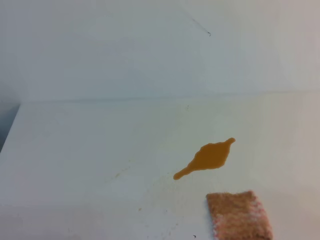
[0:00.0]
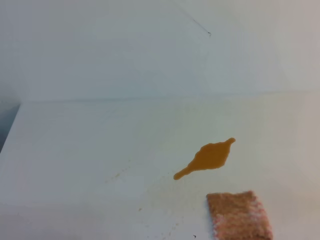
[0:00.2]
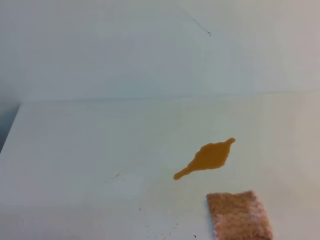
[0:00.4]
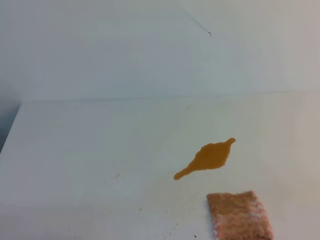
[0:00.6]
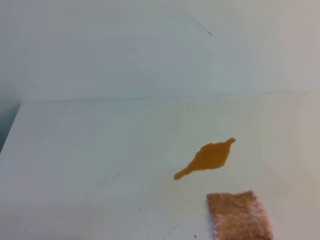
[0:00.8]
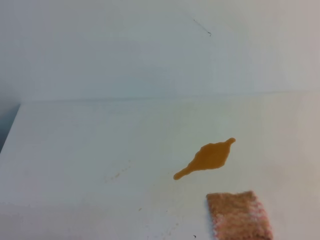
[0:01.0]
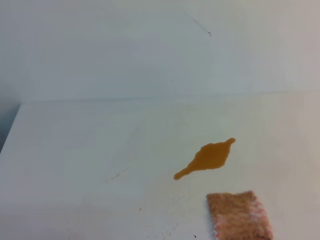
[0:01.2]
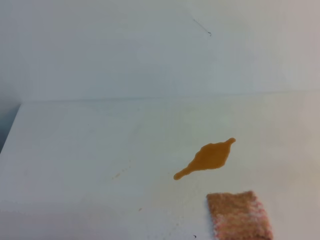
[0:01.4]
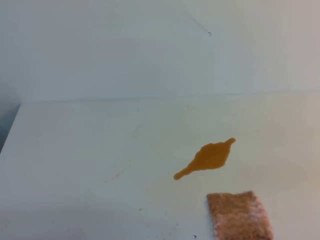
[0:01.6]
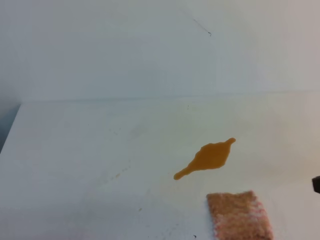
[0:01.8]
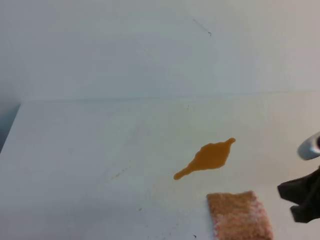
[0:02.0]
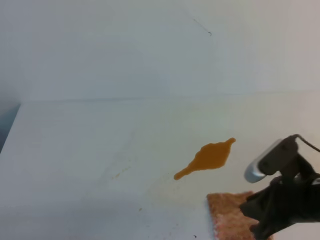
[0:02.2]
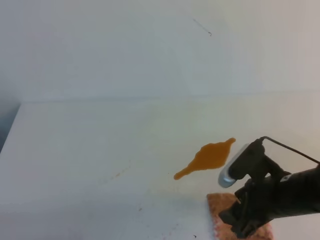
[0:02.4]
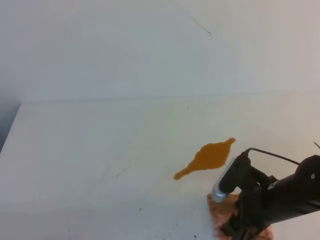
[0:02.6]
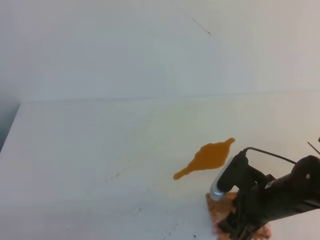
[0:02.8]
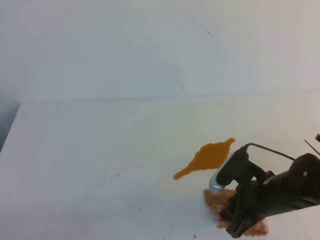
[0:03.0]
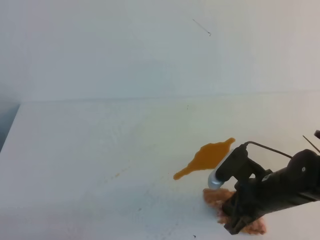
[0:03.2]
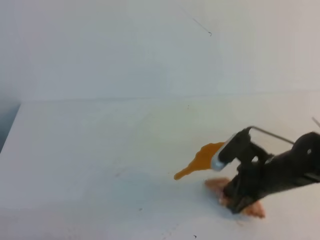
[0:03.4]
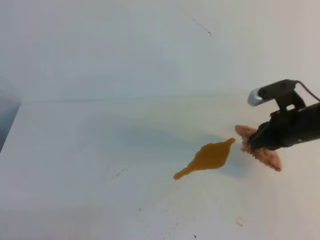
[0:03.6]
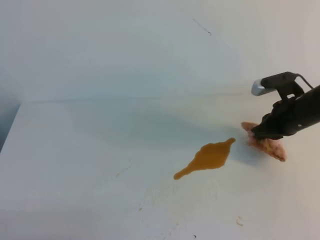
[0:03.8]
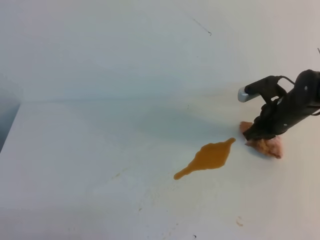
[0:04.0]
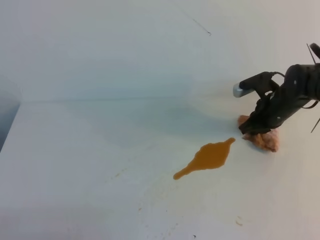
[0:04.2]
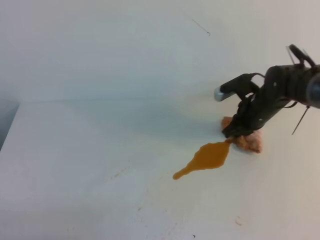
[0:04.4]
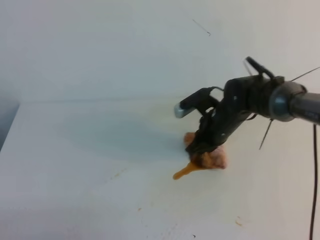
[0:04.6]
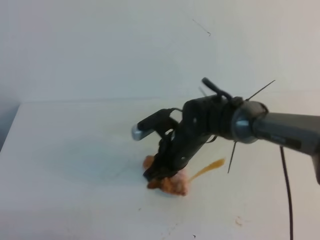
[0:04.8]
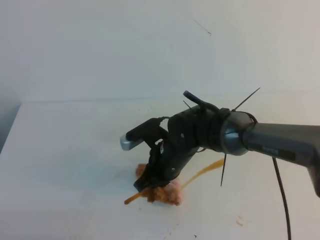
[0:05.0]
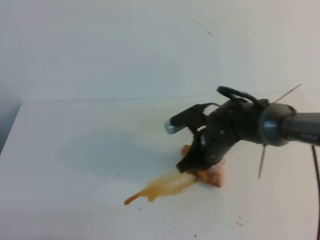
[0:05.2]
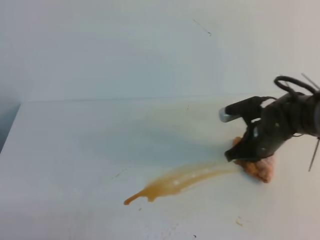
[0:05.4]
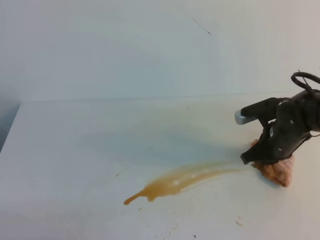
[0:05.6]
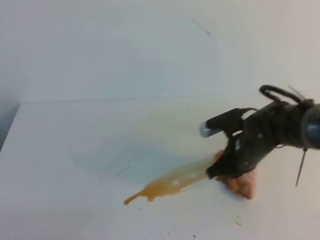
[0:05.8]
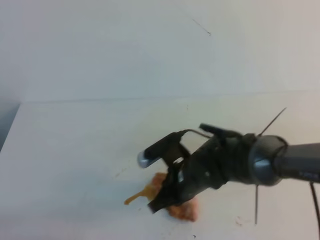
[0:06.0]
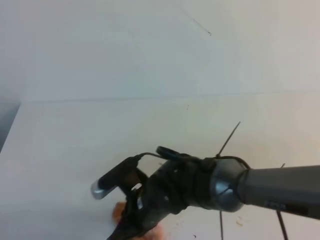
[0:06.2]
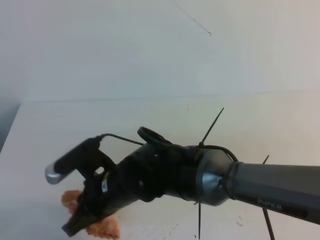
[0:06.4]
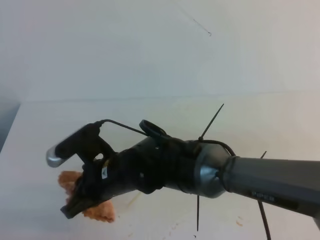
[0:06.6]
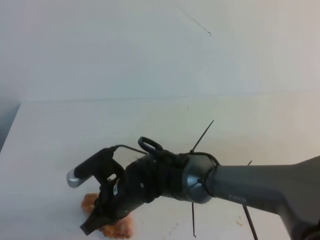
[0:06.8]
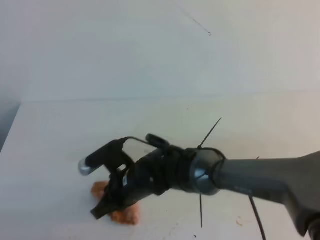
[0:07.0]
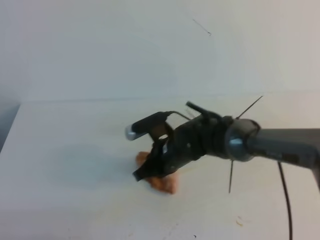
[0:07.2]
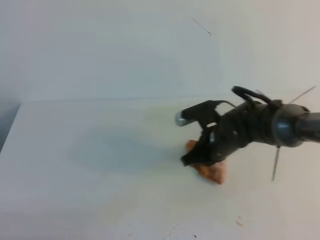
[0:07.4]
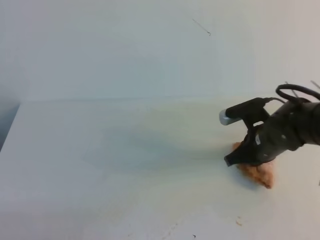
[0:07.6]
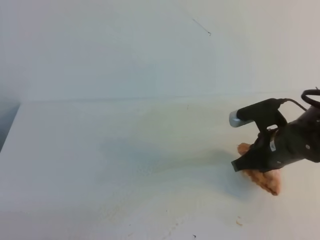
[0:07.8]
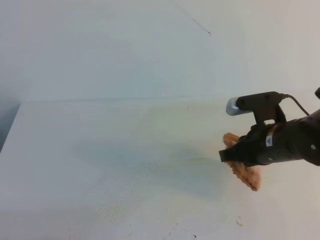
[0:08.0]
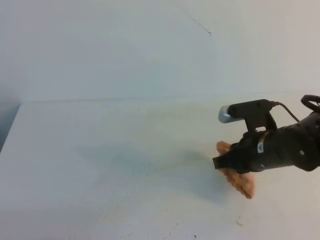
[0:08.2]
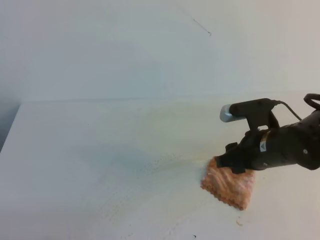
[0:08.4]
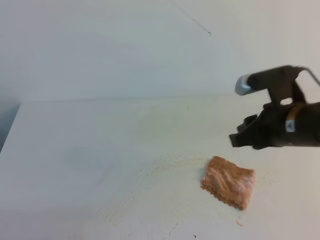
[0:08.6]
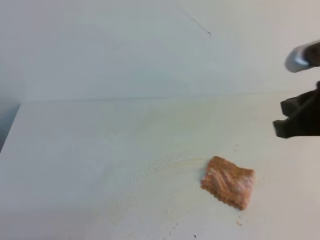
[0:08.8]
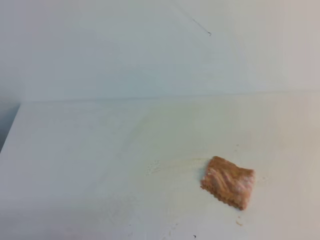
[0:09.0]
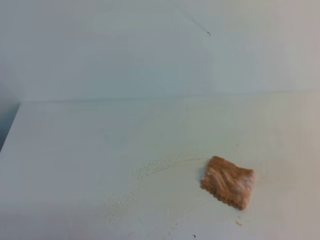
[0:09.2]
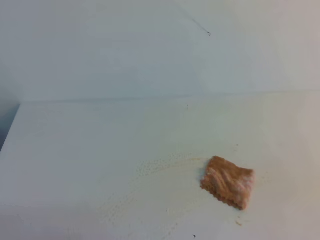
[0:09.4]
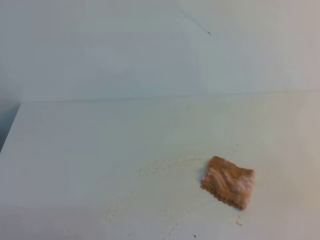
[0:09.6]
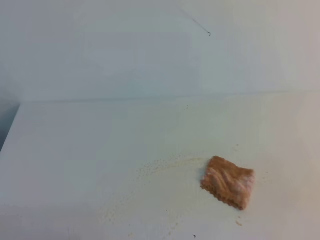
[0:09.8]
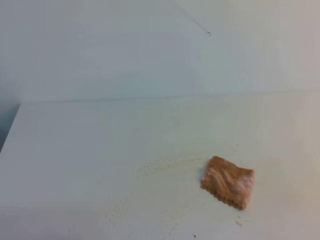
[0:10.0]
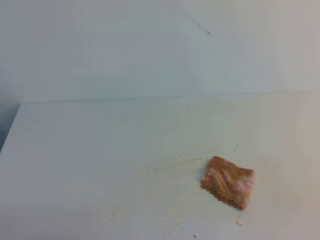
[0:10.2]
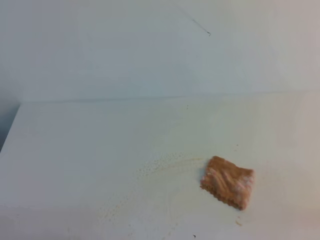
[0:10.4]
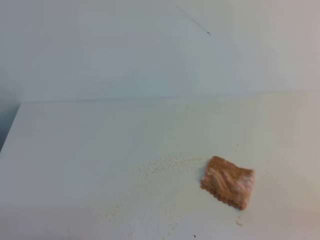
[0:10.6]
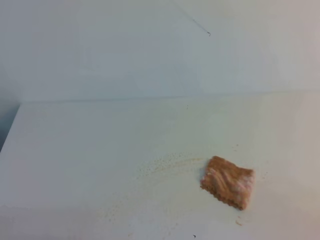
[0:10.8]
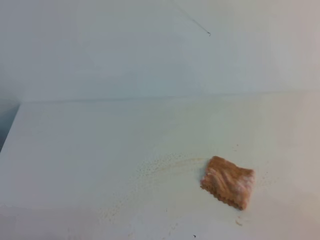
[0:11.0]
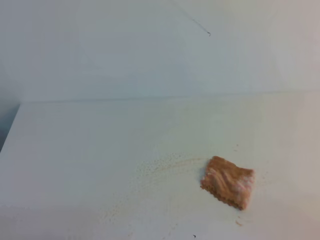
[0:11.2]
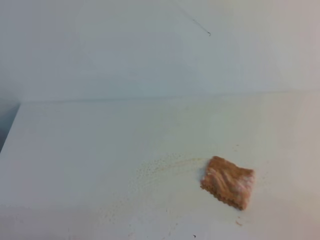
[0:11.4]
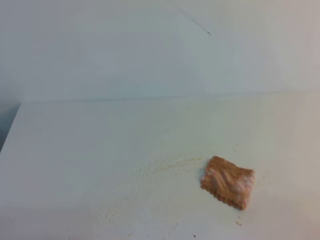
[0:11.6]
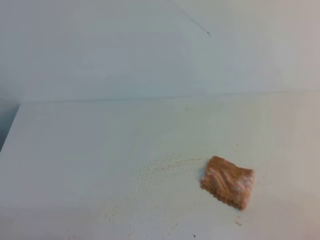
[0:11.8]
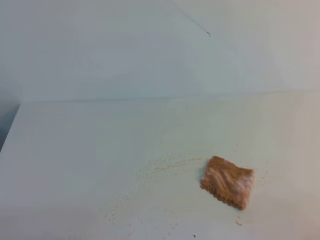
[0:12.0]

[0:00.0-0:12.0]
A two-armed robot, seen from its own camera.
0:01.6 to 0:03.0: The right gripper moves downward, to the left and forward, approximately 25 cm, and opens up.
0:03.0 to 0:04.4: The right gripper shifts about 20 cm forward, and closes up.
0:04.4 to 0:06.0: The right gripper goes left and right, roughly 15 cm each way, reversing 2 times.
0:06.0 to 0:07.6: The right gripper goes some 10 cm to the right.
0:07.6 to 0:09.0: The right gripper heads backward, upward and to the right, covering approximately 25 cm, and opens, then closes once more.
0:09.0 to 0:10.4: The right gripper travels backward, downward and to the right by some 15 cm.

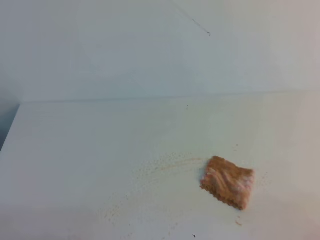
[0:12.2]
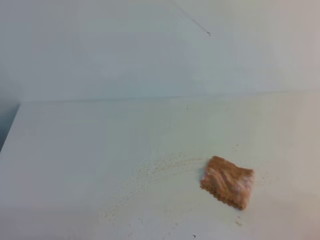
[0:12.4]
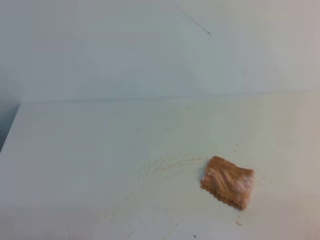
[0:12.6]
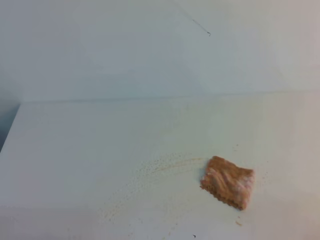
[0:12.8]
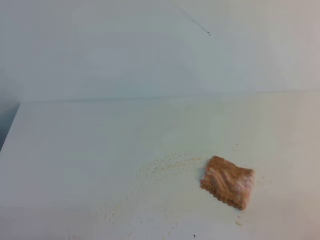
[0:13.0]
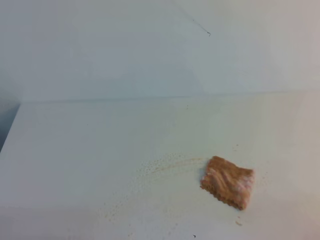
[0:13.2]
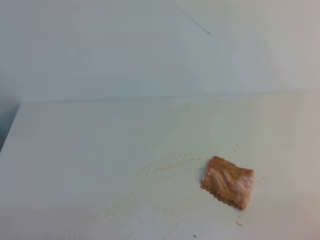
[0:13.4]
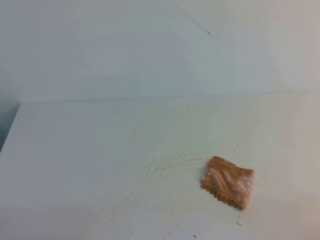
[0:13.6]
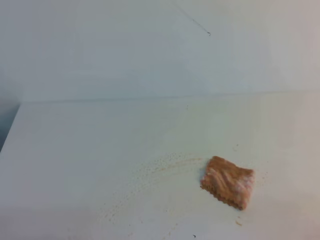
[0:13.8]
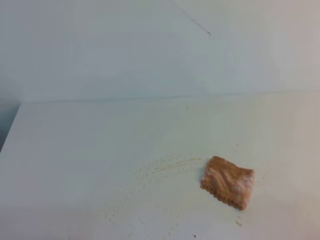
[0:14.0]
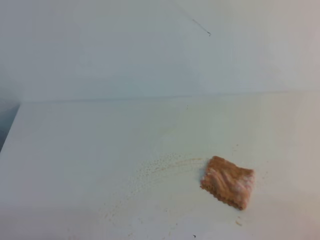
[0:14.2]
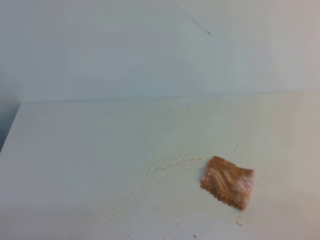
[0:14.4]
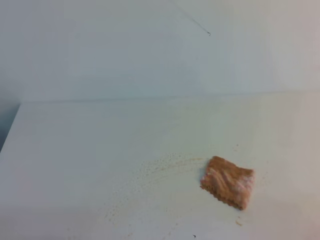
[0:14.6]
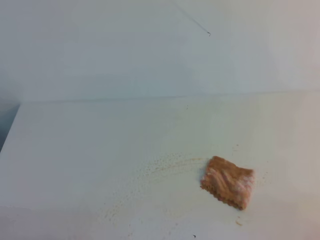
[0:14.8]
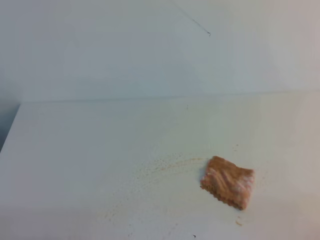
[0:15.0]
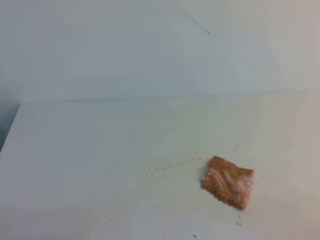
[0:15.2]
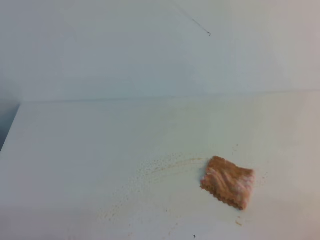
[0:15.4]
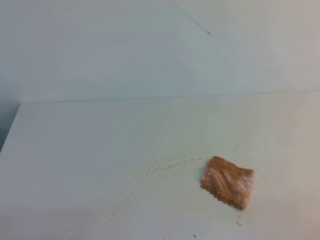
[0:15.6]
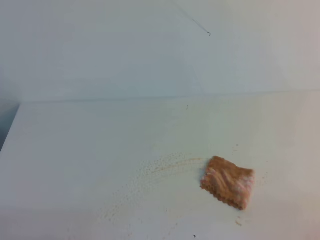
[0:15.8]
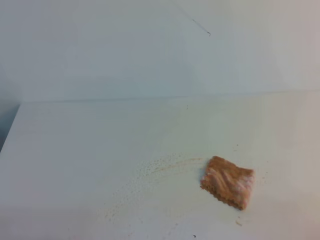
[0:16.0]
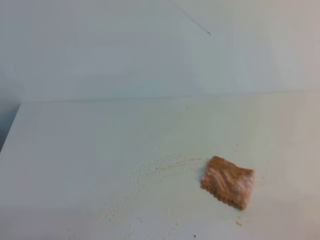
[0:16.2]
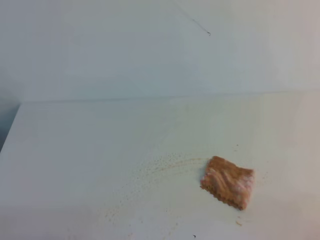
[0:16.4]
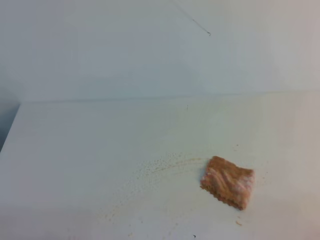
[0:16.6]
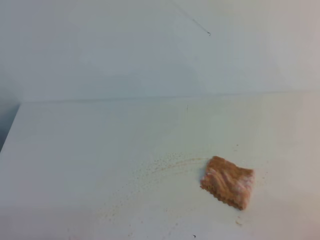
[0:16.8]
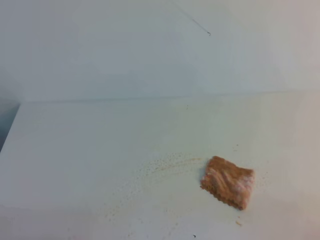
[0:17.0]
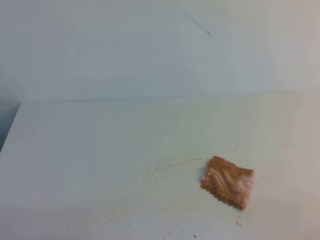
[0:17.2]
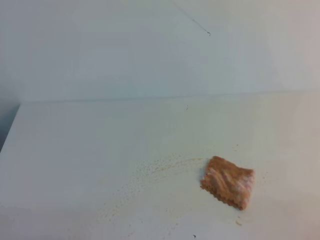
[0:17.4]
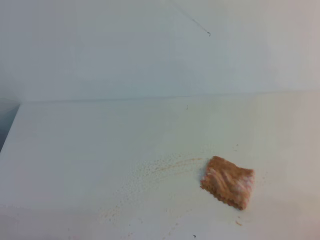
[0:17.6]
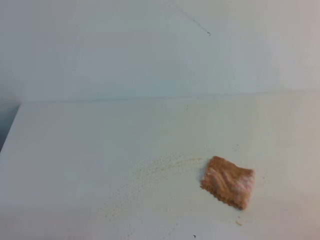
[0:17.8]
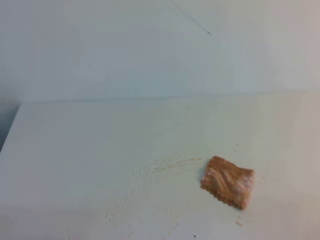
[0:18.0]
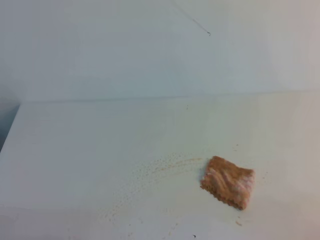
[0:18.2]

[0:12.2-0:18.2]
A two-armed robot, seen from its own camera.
0:12.2 to 0:18.2: Both grippers stay about where they are.

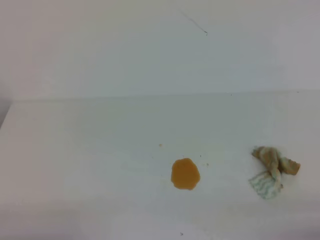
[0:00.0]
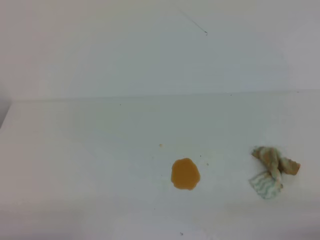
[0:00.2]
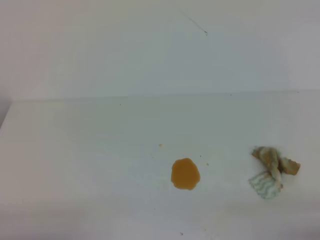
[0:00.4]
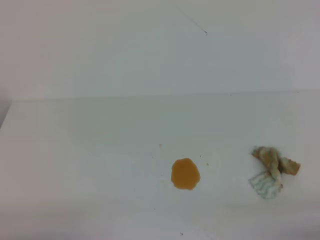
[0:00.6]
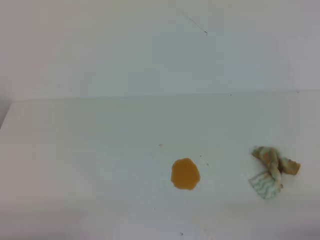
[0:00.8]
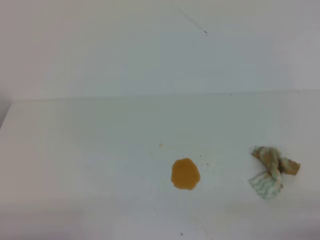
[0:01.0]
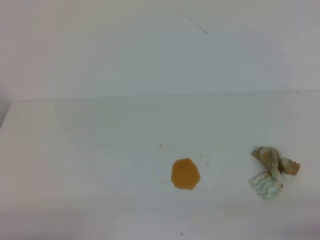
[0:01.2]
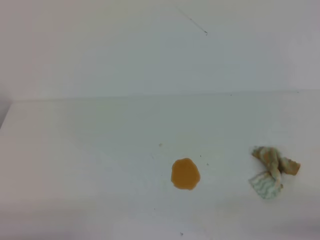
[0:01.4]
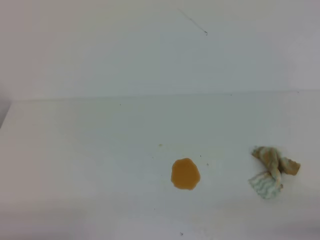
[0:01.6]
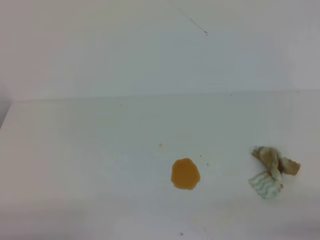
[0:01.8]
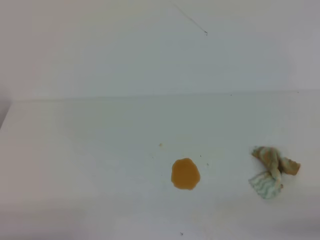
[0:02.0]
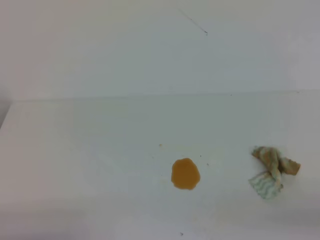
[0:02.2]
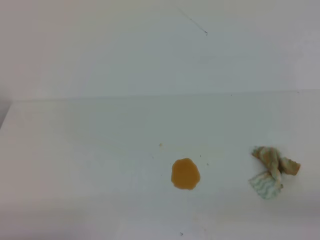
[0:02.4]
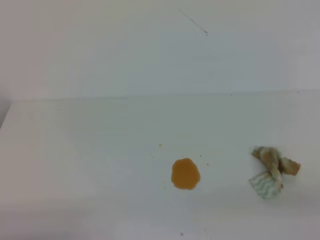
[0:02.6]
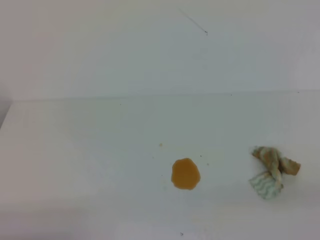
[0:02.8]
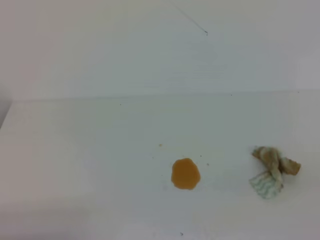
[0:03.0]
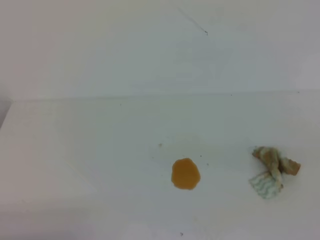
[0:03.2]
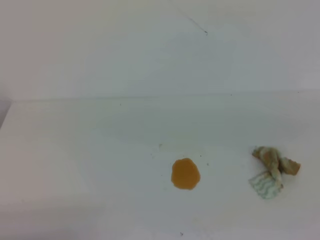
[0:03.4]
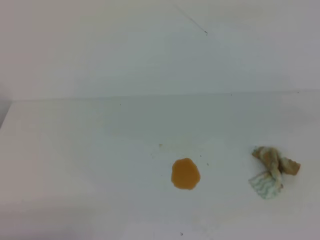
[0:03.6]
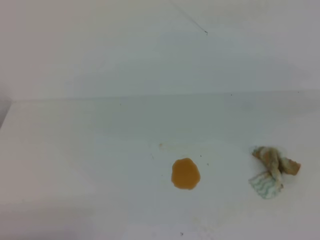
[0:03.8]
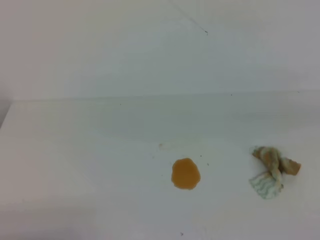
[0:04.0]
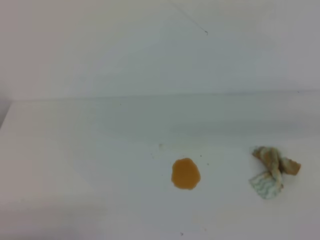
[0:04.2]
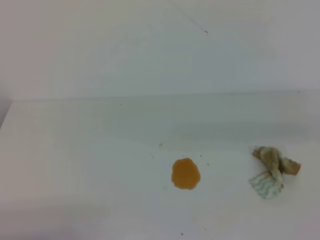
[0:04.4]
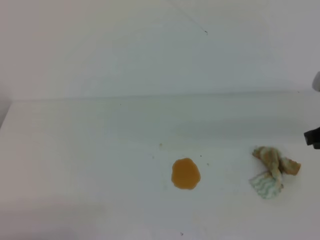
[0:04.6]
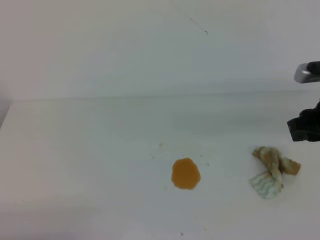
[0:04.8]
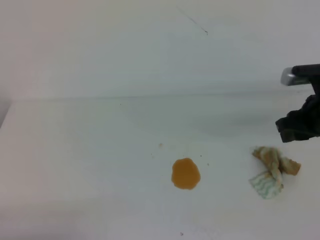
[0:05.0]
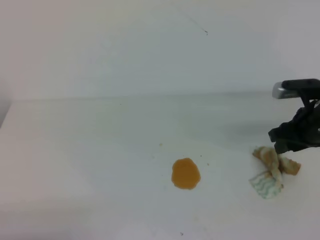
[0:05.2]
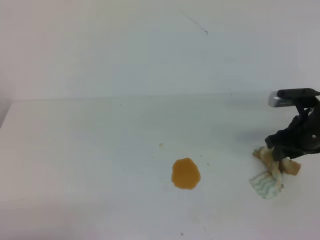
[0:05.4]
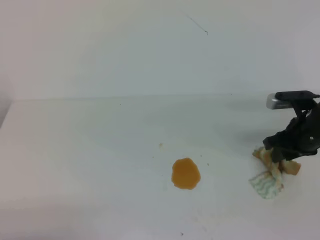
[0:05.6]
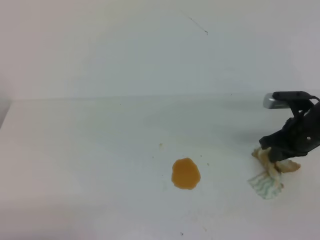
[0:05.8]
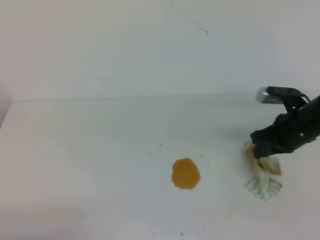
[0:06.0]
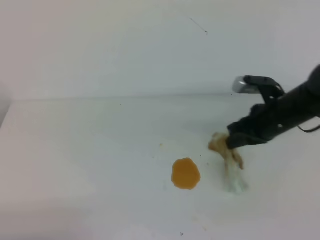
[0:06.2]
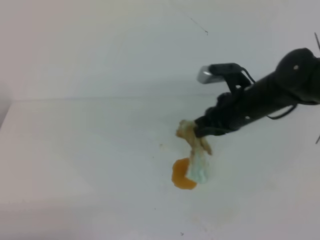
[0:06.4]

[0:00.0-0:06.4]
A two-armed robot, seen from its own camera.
0:00.0 to 0:01.6: Neither gripper changes place.
0:03.2 to 0:04.8: The right gripper heads forward, covering approximately 25 cm, and opens.
0:04.8 to 0:06.4: The right gripper shifts approximately 15 cm to the left and forward, and closes up.
